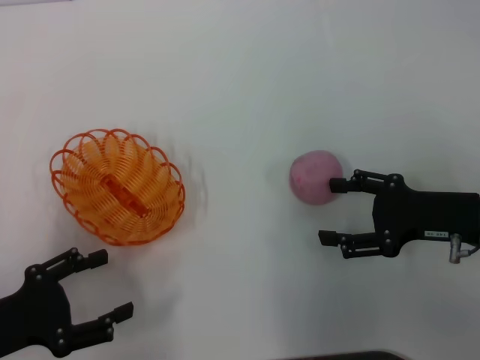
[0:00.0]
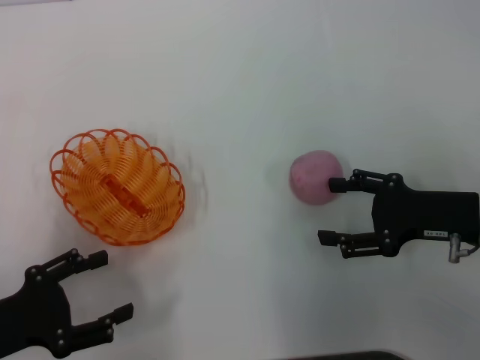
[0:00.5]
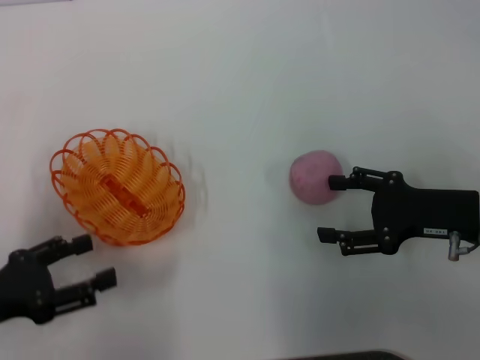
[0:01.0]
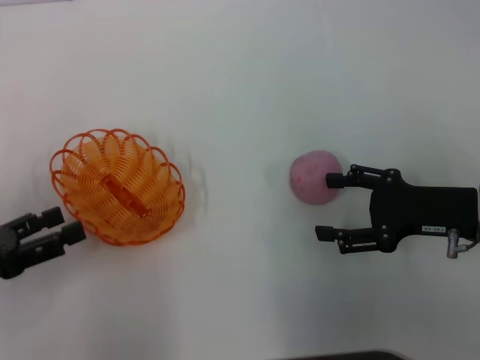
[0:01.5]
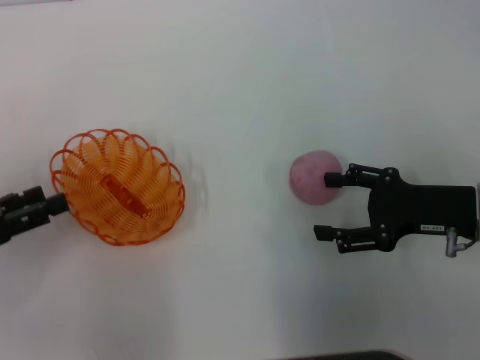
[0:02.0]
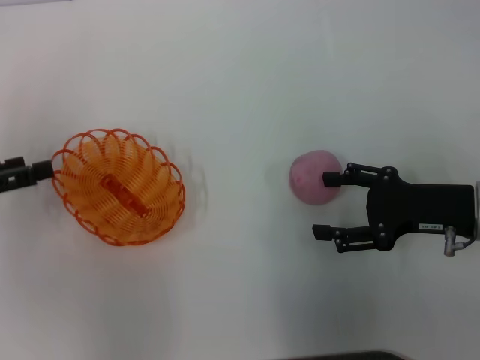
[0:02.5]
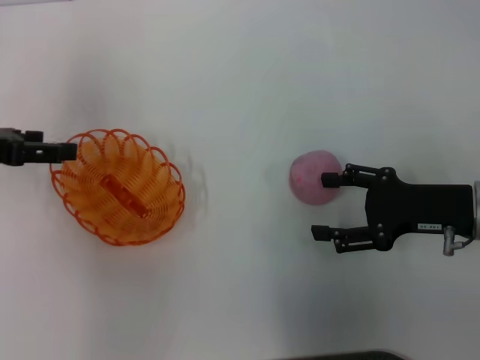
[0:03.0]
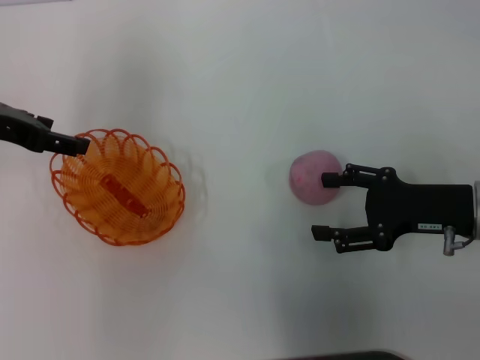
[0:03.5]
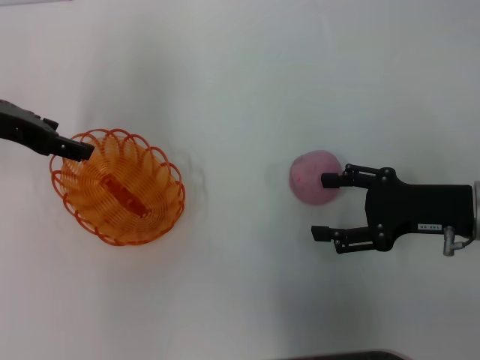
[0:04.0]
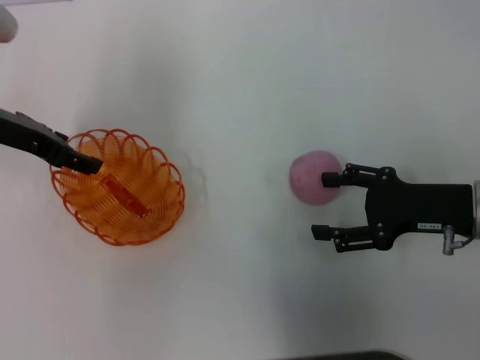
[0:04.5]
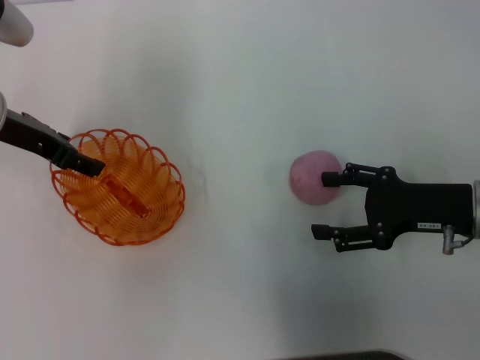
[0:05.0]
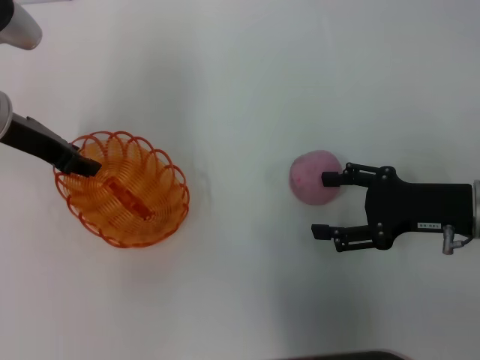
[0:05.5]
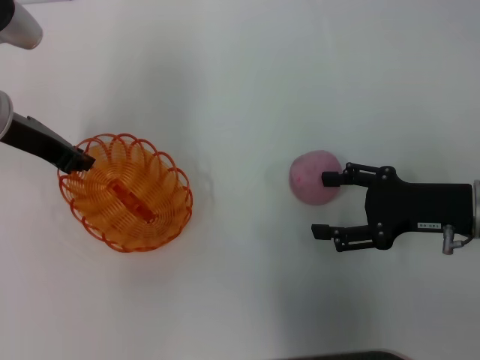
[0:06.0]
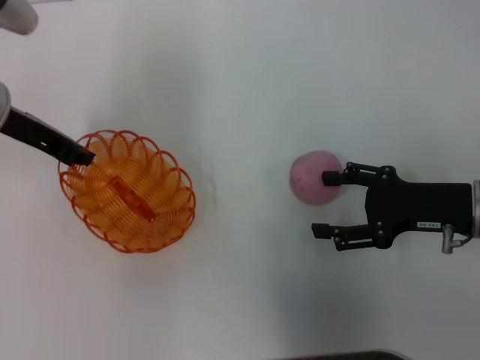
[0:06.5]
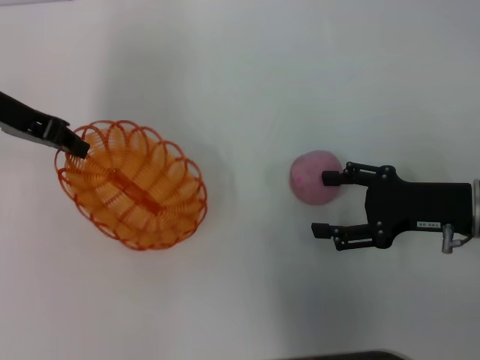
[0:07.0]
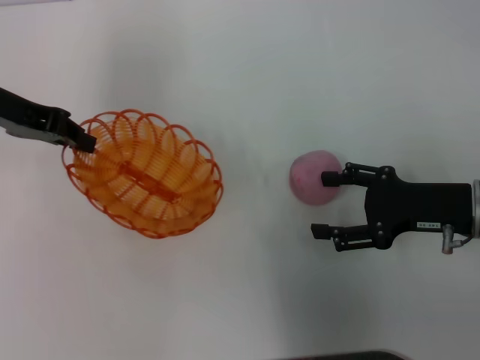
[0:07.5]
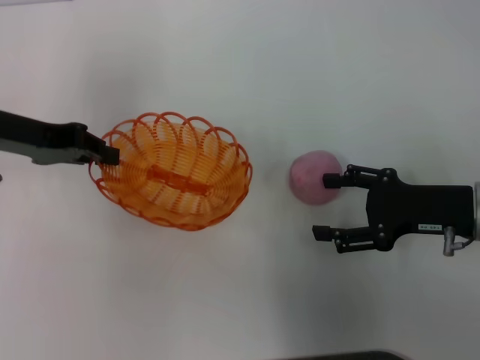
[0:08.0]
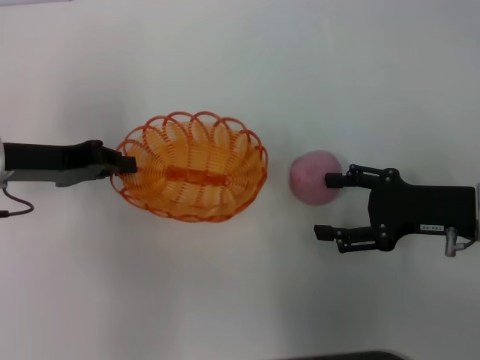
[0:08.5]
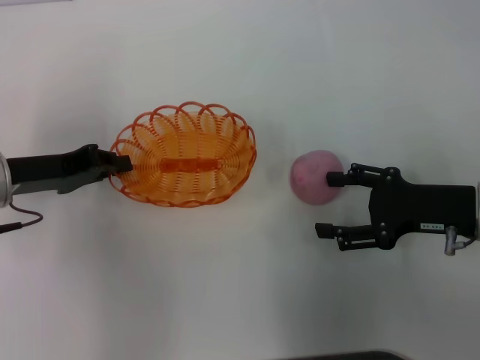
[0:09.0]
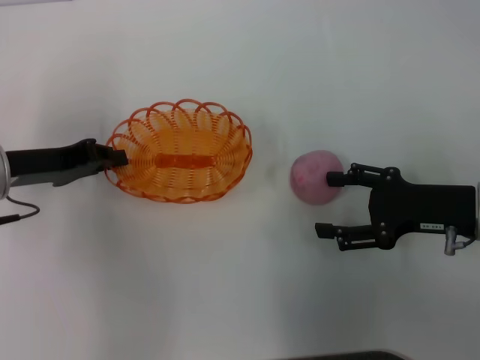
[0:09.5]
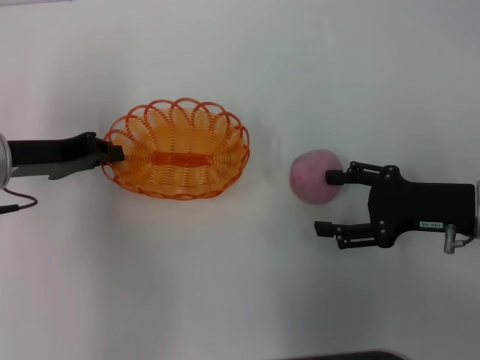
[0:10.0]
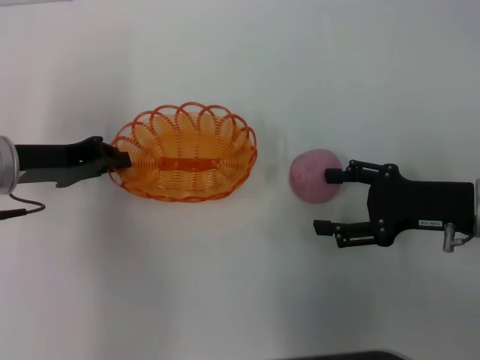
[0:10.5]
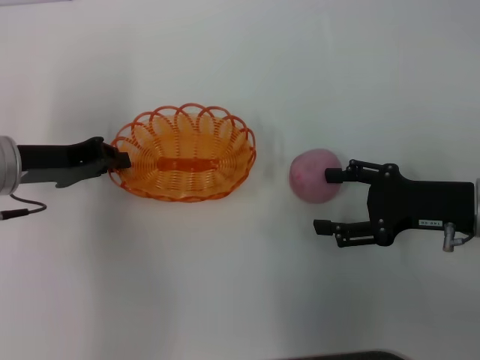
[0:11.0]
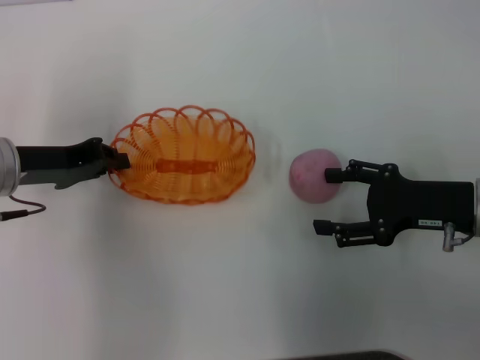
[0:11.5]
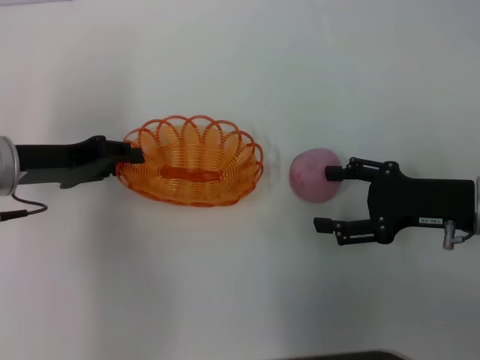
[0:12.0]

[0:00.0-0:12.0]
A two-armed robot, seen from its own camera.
Step, 0:00.0 to 0:07.0: Pick up the basket with the left gripper.
0:00.0 to 0:02.0: The left gripper is displaced forward by roughly 5 cm.
0:02.0 to 0:04.0: The left gripper moves forward, upward and to the right, approximately 20 cm.
0:04.0 to 0:06.0: The left gripper closes its fingers.
0:08.0 to 0:10.0: The left gripper changes place by some 5 cm.
0:10.0 to 0:12.0: There are only small adjustments of the grippers.

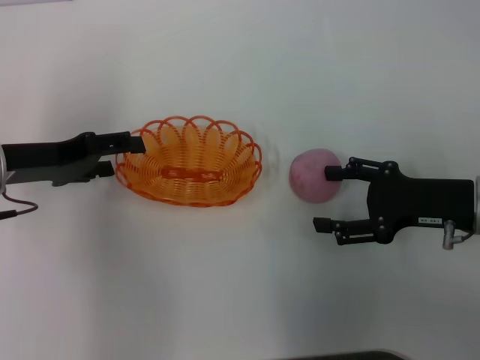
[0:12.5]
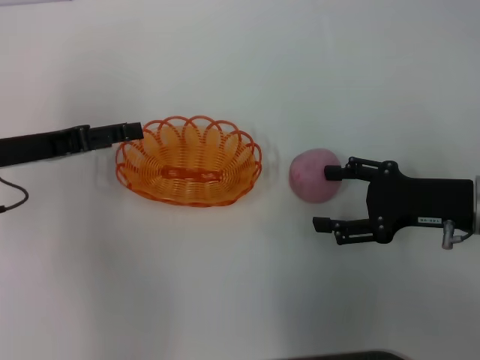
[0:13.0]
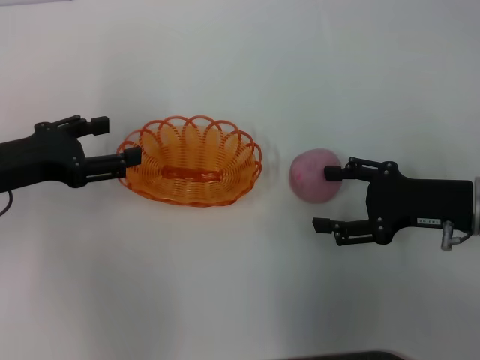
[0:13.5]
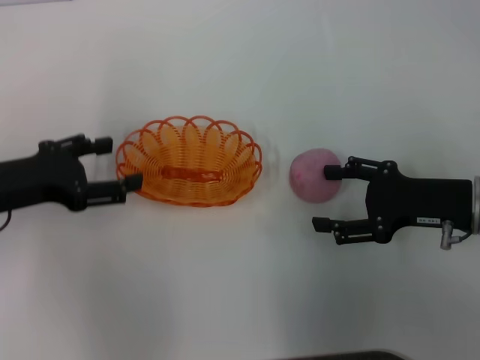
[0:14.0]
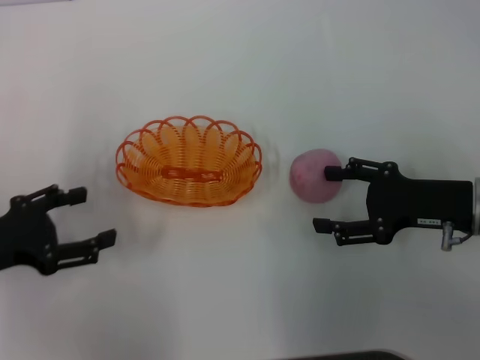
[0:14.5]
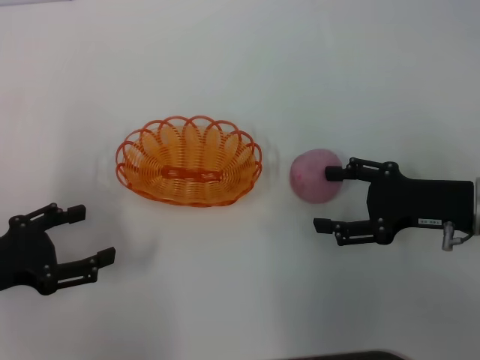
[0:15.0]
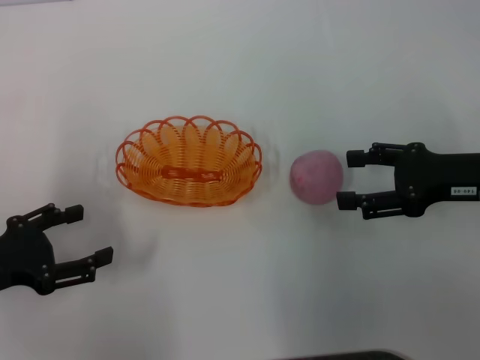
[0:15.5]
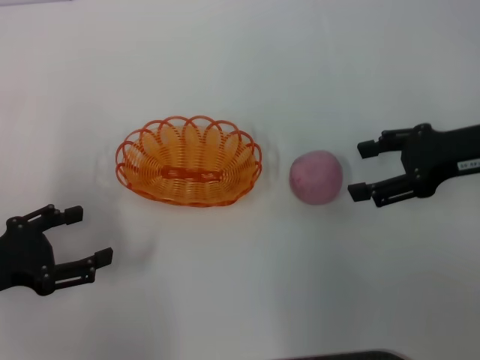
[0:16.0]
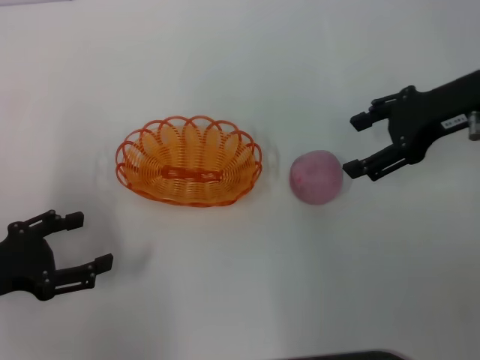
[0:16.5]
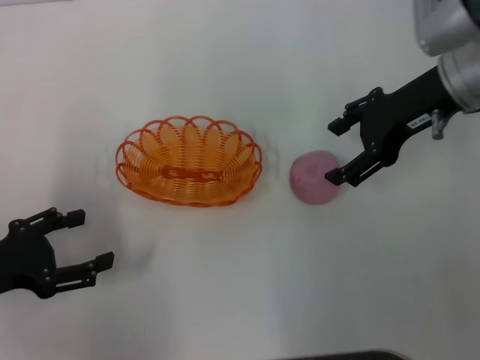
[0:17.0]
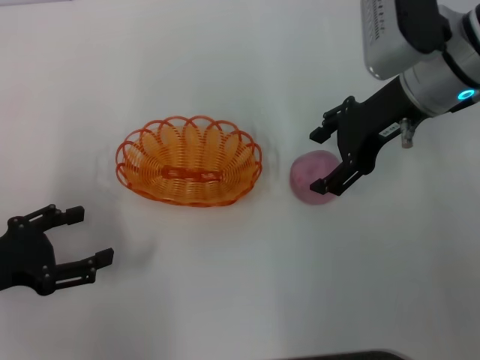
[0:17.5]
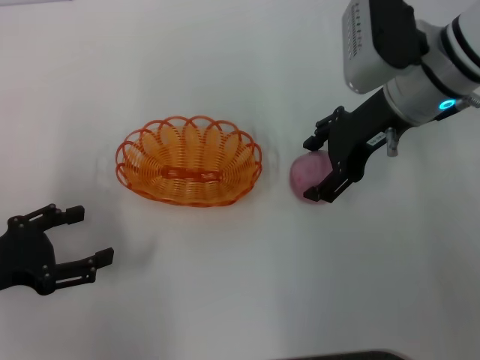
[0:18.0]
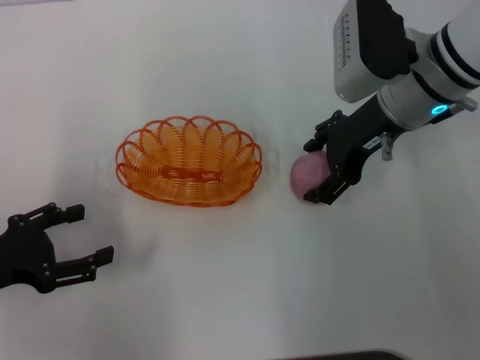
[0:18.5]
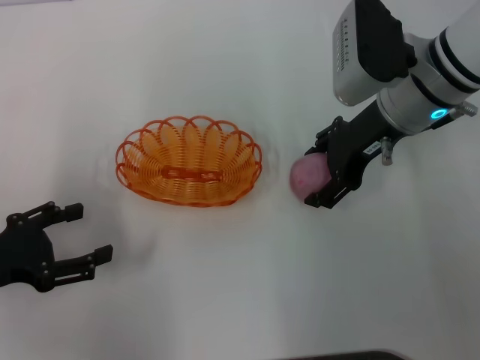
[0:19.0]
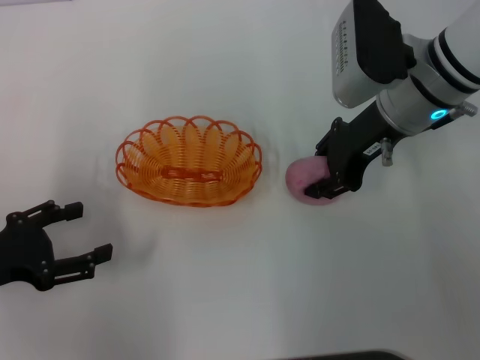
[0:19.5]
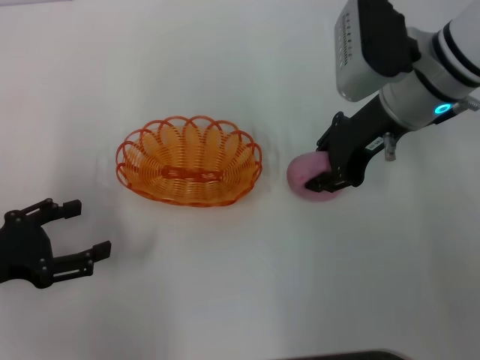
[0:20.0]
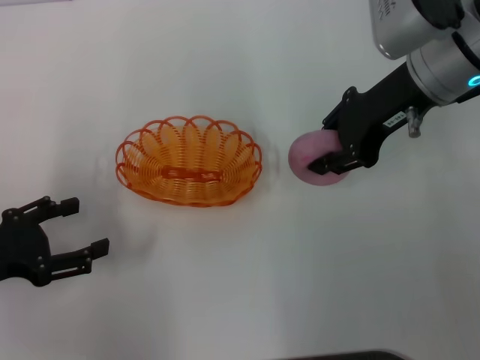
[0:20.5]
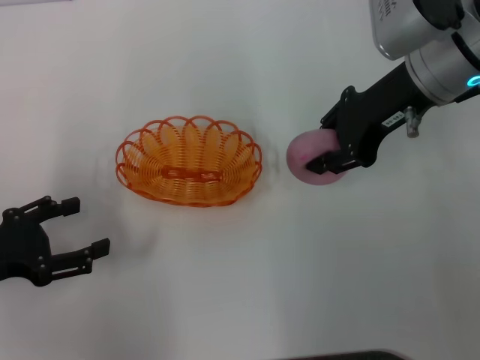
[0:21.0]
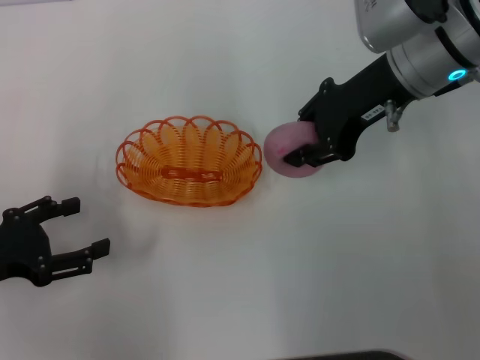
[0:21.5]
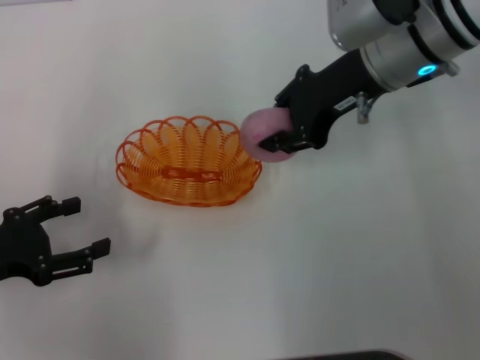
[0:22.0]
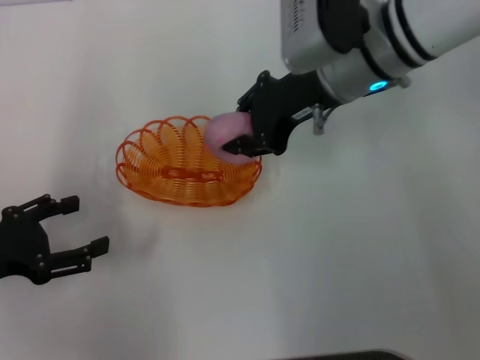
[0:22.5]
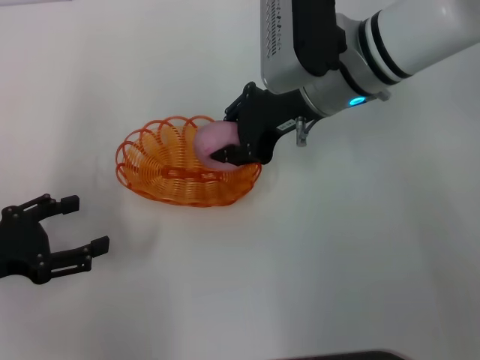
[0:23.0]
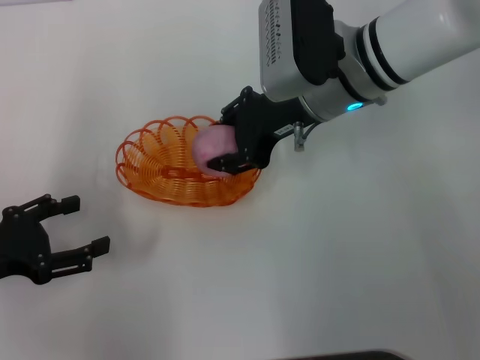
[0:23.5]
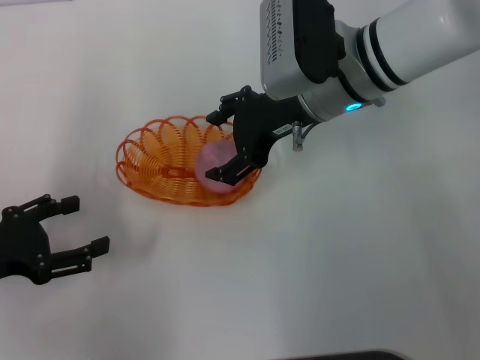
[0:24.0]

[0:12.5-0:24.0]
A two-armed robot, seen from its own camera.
Step, 0:14.0 to 0:20.5: Pick up the peach with the right gripper.
0:12.5 to 0:14.5: The left gripper shifts some 10 cm backward.
0:14.5 to 0:16.5: The right gripper is displaced upward and forward by approximately 15 cm.
0:16.5 to 0:18.5: The right gripper travels to the left by some 10 cm.
0:18.5 to 0:20.0: The right gripper closes its fingers.
0:20.0 to 0:22.0: The grippers make only small movements.
0:22.0 to 0:24.0: The right gripper ends up some 5 cm from where it was, and opens its fingers.

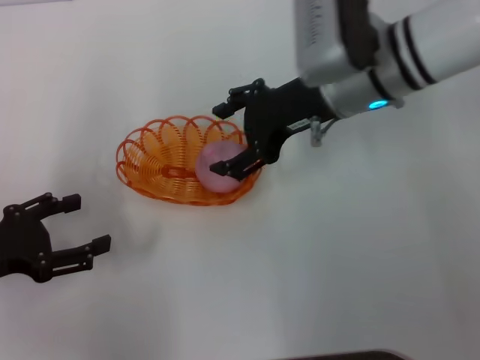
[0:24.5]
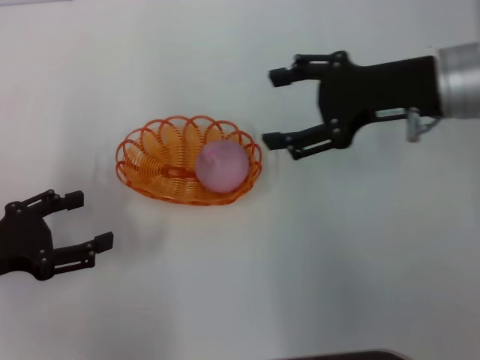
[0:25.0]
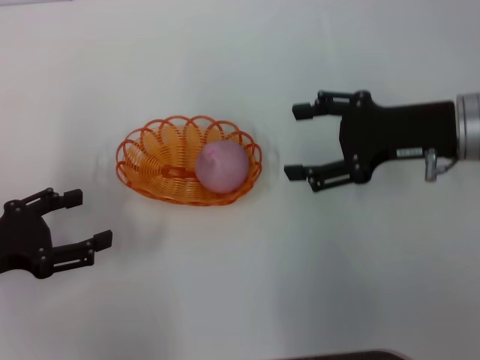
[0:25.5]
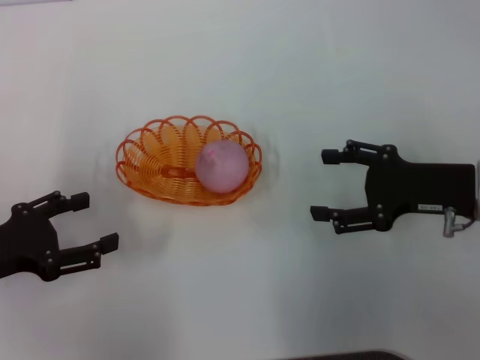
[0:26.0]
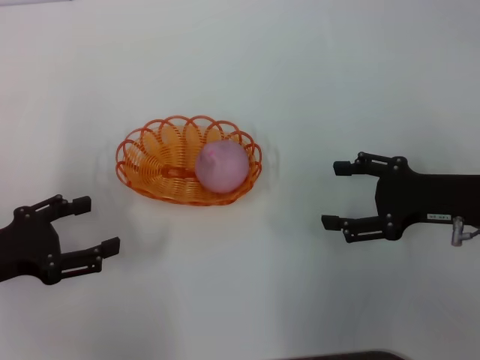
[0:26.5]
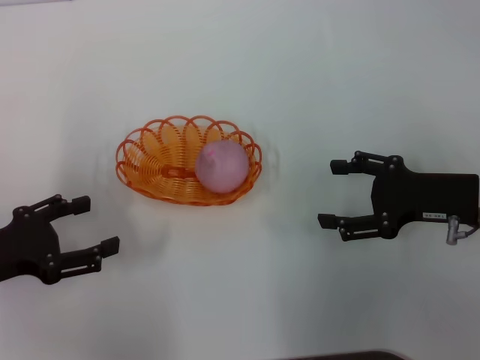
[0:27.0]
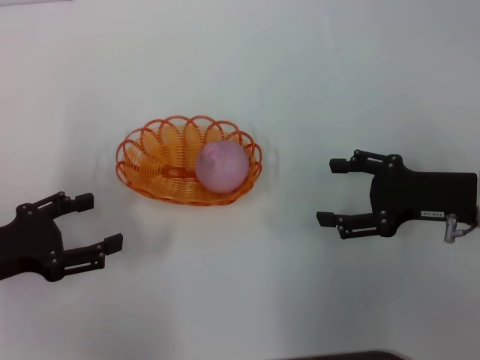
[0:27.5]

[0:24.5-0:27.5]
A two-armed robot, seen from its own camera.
0:24.5 to 0:26.0: The right gripper is displaced to the right, backward and downward by about 20 cm.
0:26.0 to 0:27.5: The grippers move only a little.
